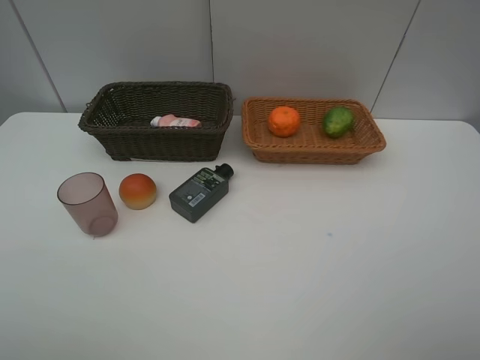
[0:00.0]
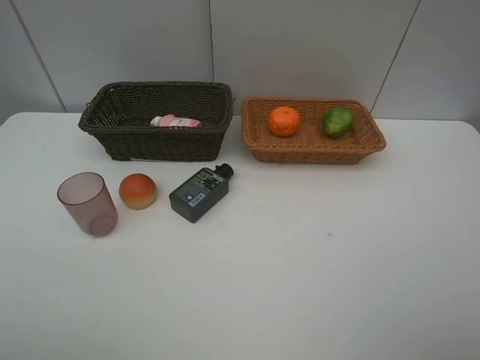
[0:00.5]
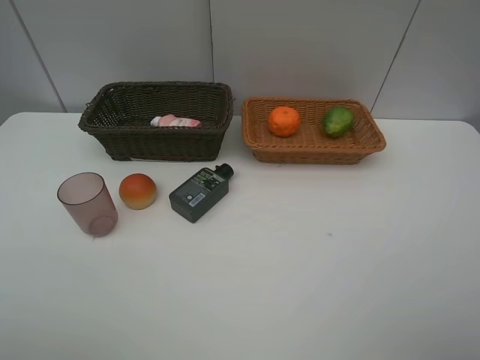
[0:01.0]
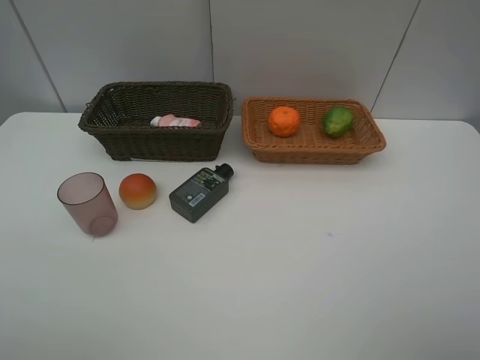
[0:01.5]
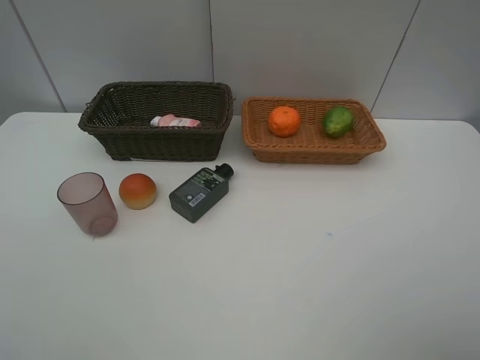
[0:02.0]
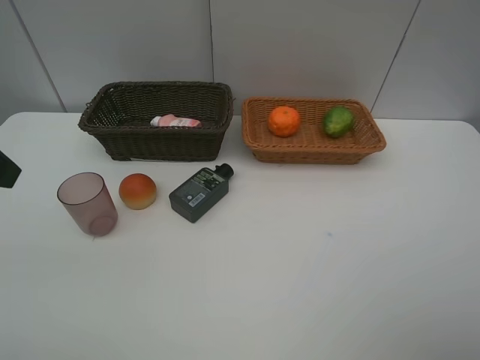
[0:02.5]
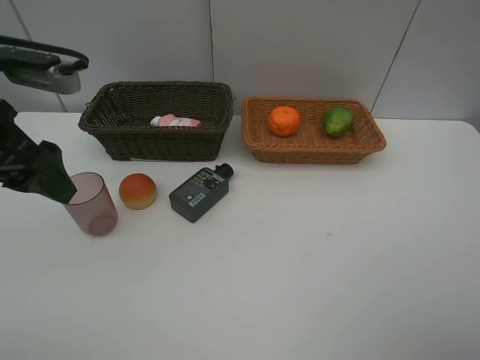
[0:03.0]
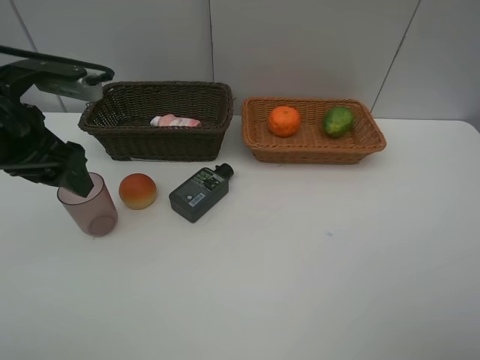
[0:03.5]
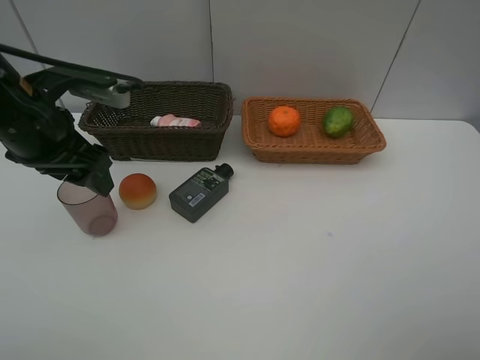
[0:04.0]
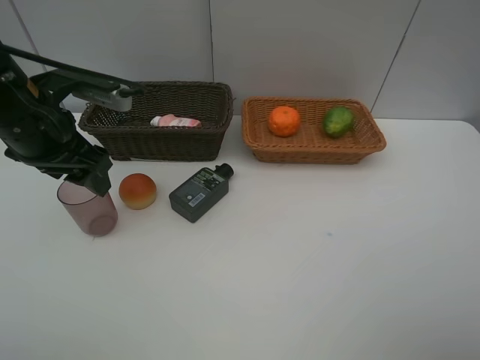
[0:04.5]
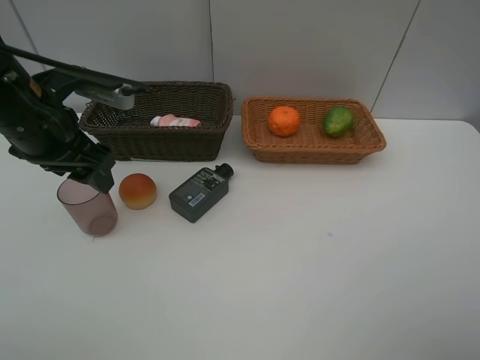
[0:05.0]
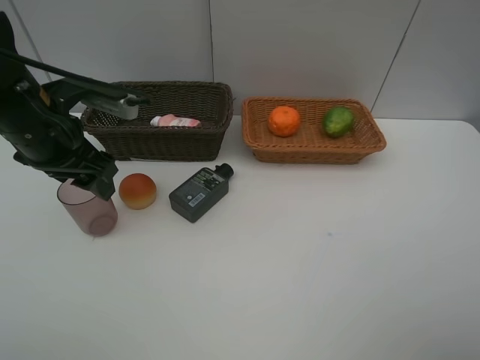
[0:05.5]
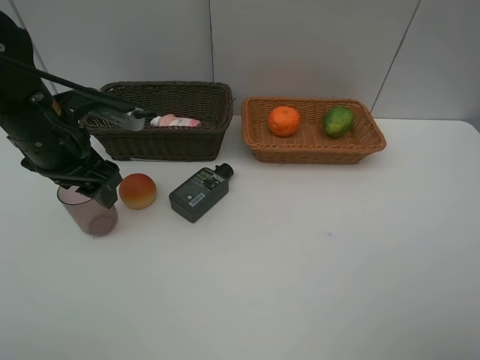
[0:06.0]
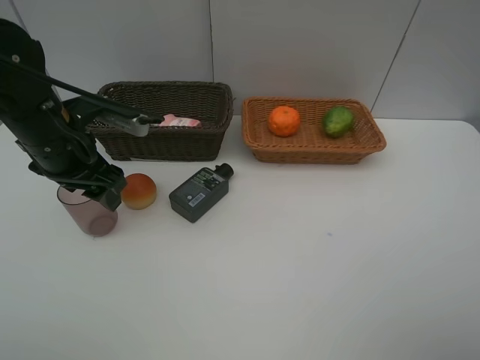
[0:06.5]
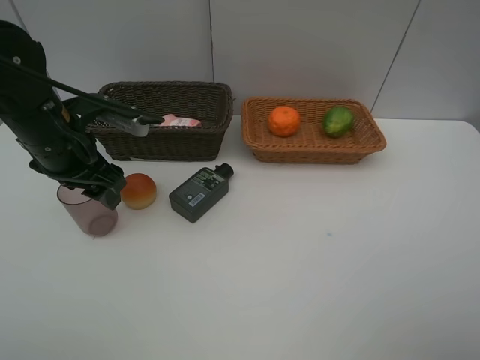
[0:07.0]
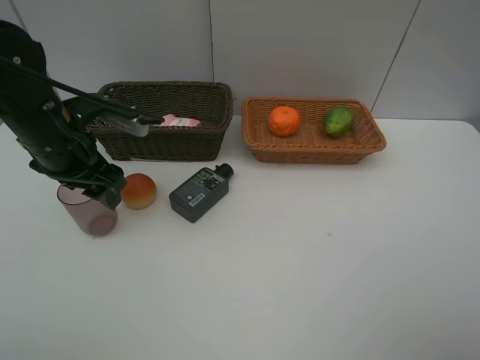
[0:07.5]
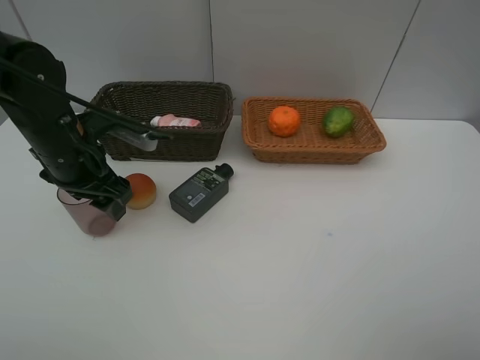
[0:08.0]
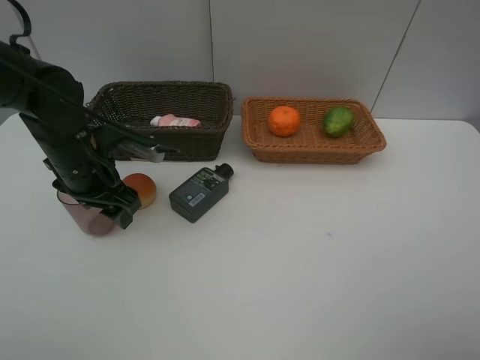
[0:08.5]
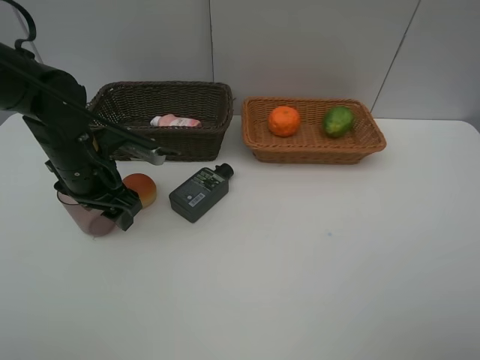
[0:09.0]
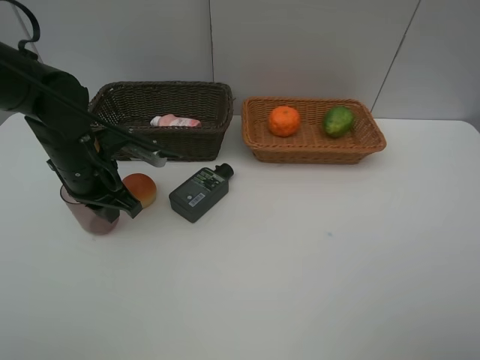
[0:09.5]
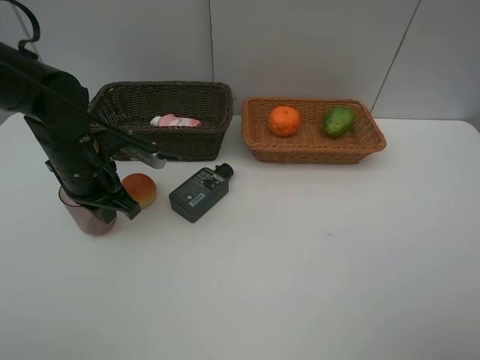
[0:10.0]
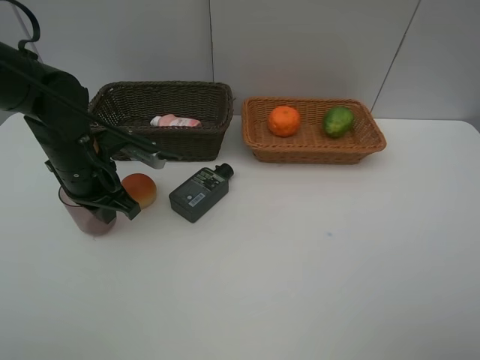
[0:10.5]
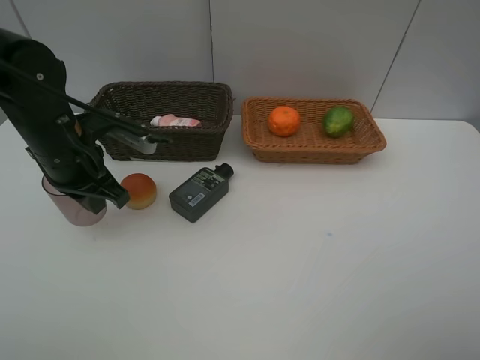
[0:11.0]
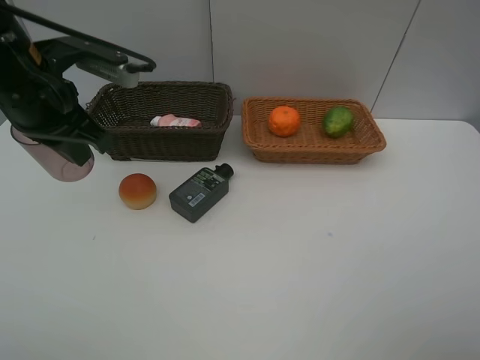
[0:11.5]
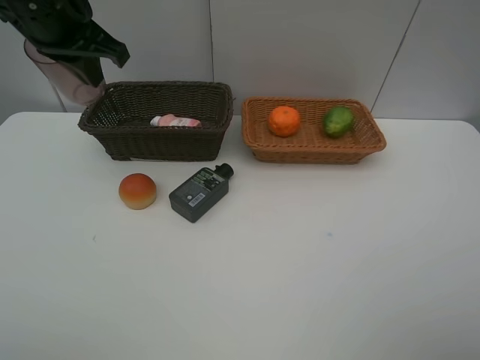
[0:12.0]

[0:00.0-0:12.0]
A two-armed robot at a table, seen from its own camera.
Task of the whole recording: place multiple objects separately in different baskets.
0:02.0 to 0:04.0: The left gripper moves forward, downward and to the right, some 20 cm.
0:04.0 to 0:06.0: There are only small adjustments of the grippers.
0:06.0 to 0:08.0: The grippers make only small movements.
0:08.0 to 0:10.0: The left gripper closes its fingers.
0:10.0 to 0:12.0: The left gripper moves upward, roughly 20 cm.

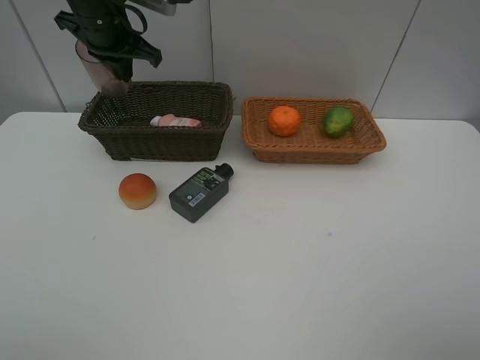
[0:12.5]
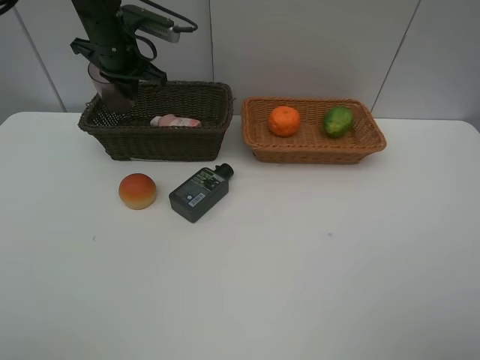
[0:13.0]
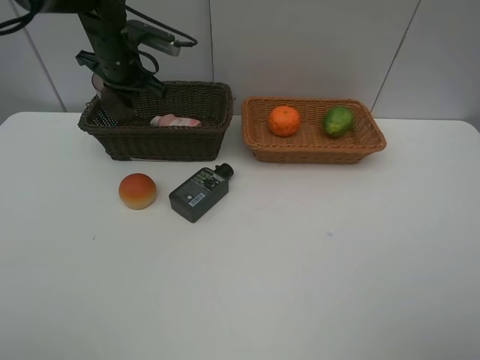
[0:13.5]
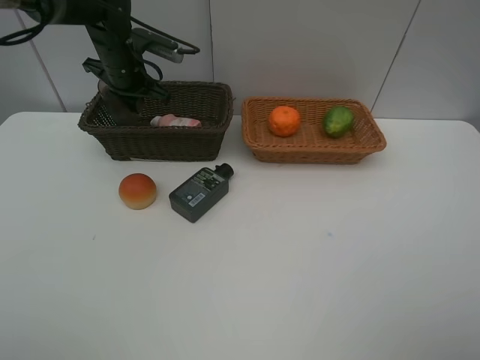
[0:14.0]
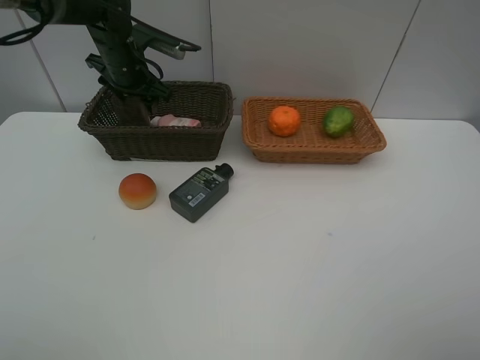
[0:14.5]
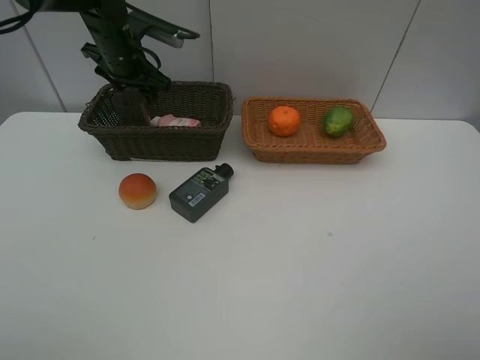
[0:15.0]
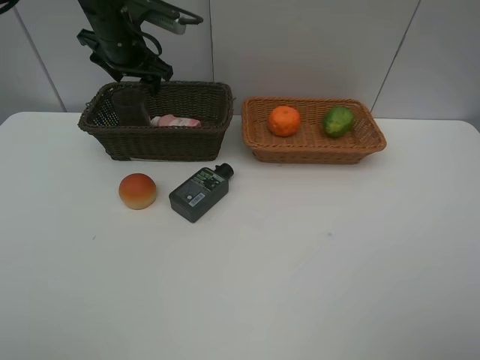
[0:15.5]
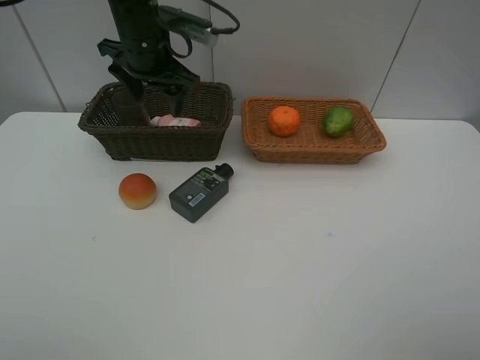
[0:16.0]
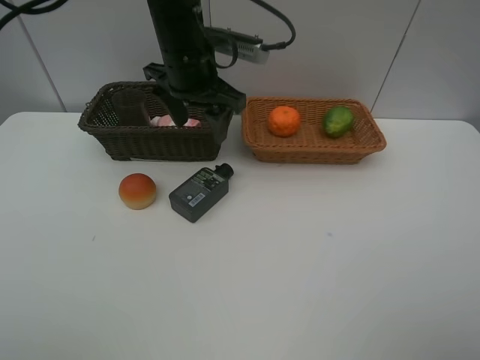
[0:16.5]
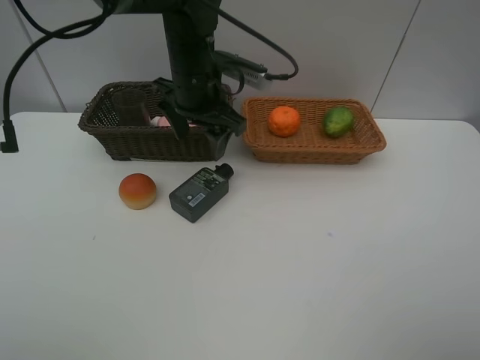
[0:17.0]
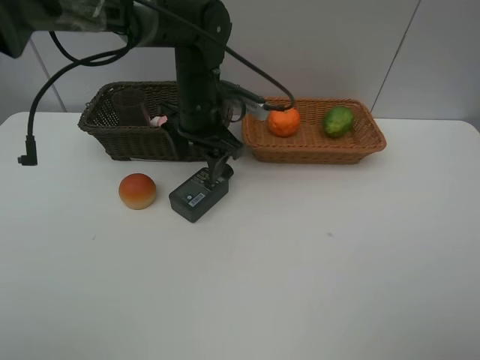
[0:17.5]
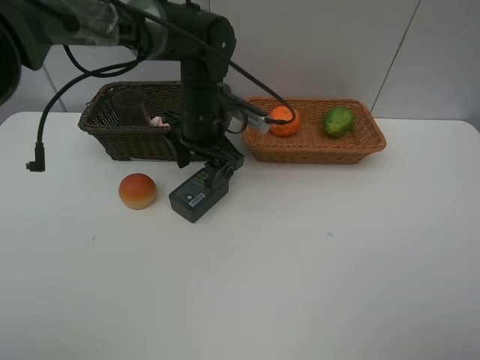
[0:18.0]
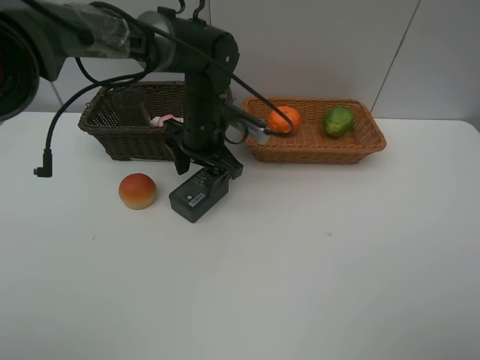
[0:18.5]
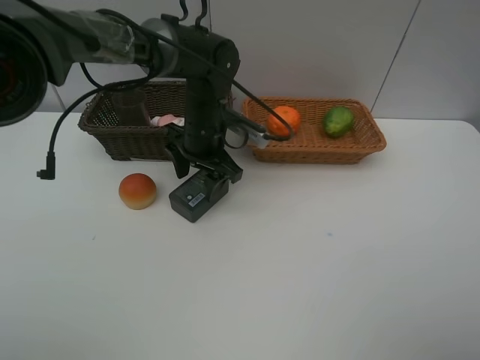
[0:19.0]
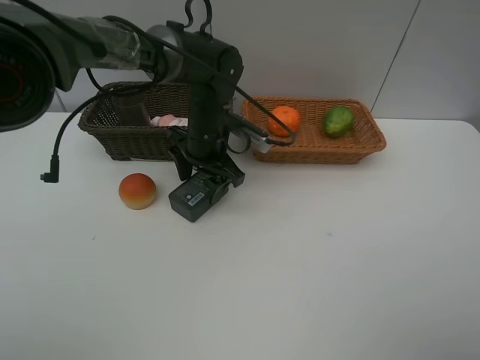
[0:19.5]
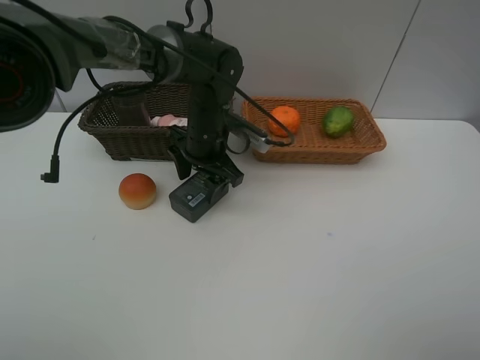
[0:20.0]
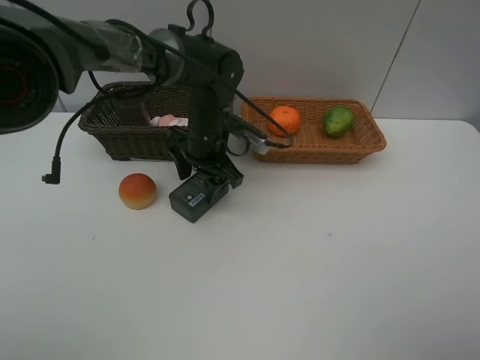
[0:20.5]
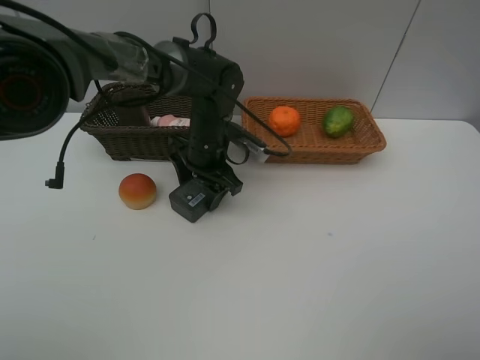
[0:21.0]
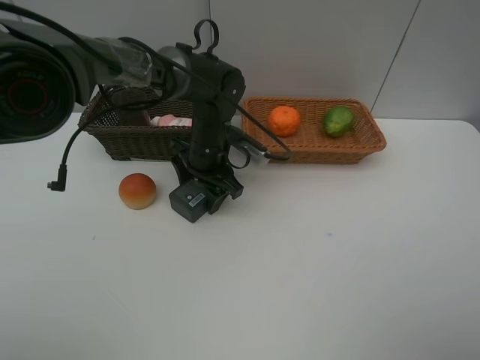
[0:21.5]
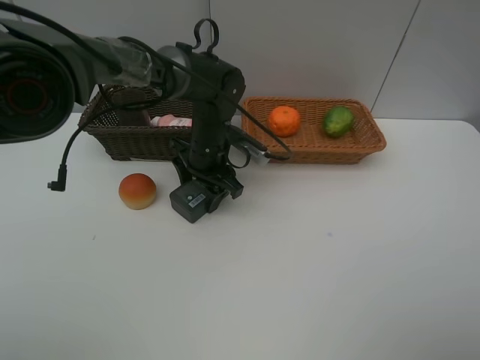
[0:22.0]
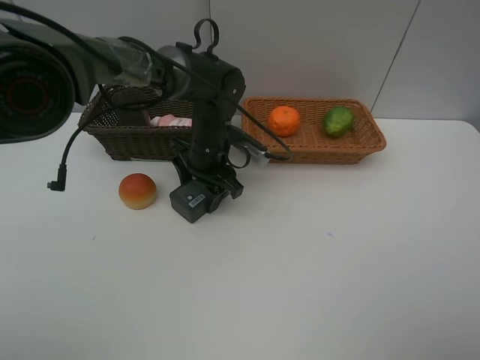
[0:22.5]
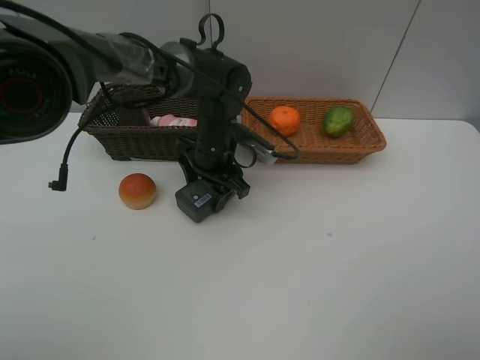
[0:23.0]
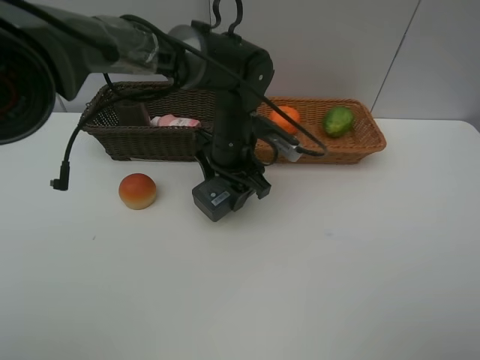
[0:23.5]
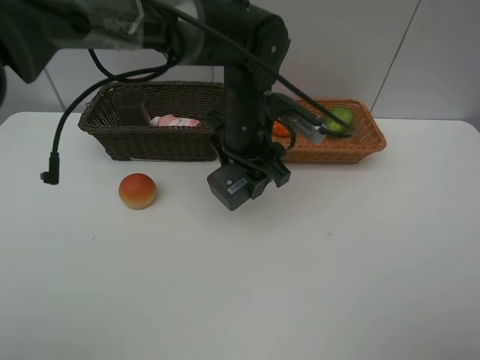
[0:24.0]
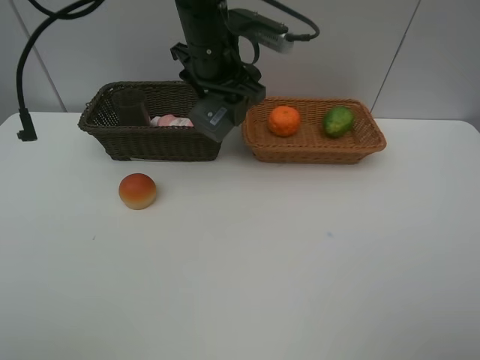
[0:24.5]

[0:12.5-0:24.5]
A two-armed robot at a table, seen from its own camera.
Task of the whole recording: place multiple objects separately in different baskets.
0:12.5 to 0:14.5: The left gripper goes roughly 10 cm downward, and opens up.
0:14.5 to 0:16.5: The left gripper moves to the right, backward and upward, approximately 20 cm.
0:16.5 to 0:18.5: The left gripper moves downward, some 10 cm.
0:18.5 to 0:22.5: The grippers stay close to where they were, moving slightly.
0:22.5 to 0:24.5: The left gripper shifts approximately 15 cm upward.

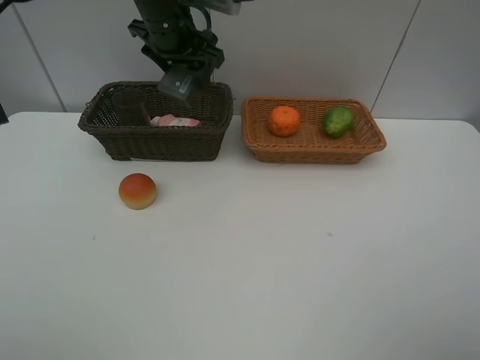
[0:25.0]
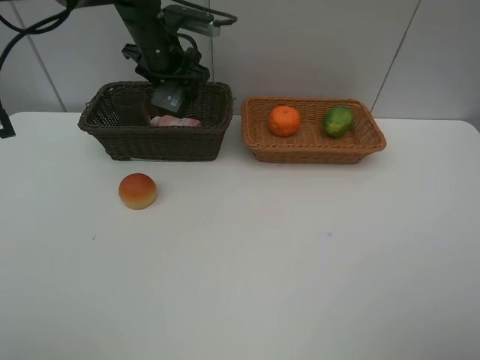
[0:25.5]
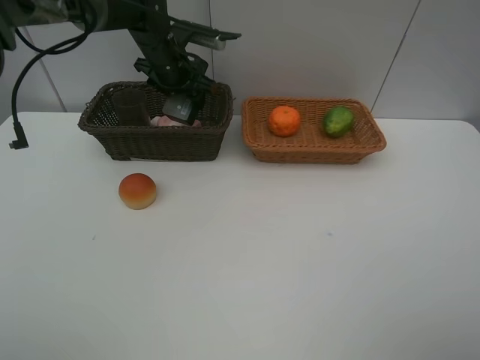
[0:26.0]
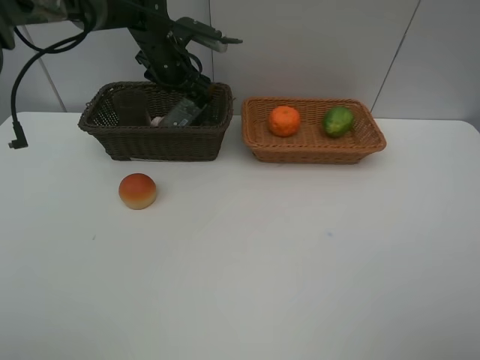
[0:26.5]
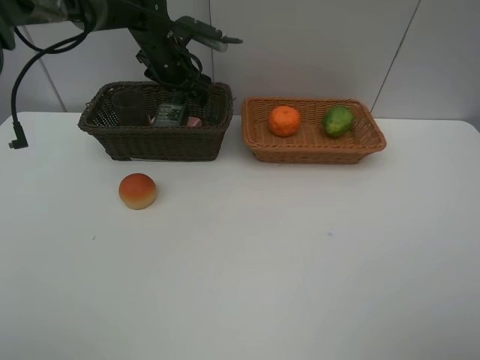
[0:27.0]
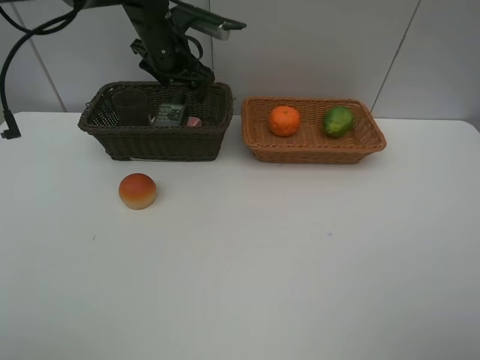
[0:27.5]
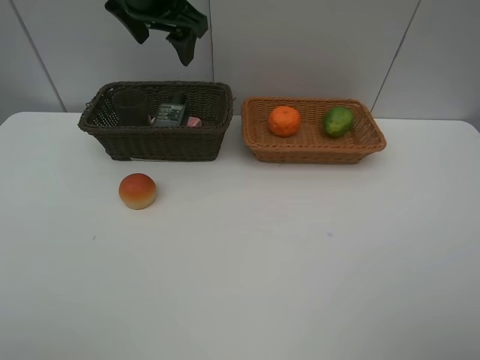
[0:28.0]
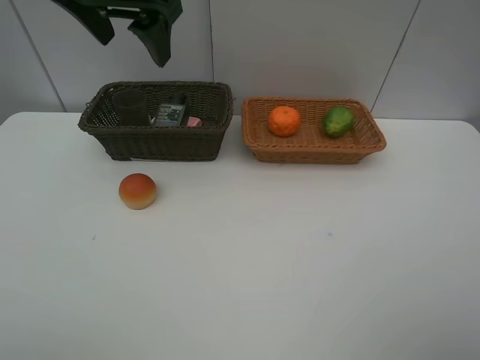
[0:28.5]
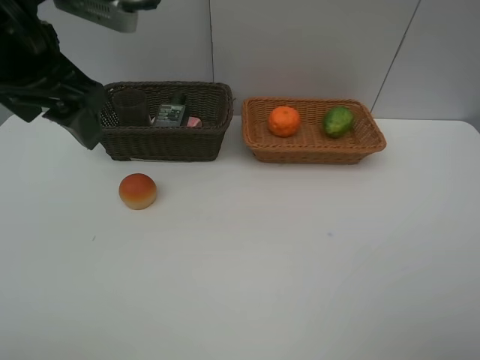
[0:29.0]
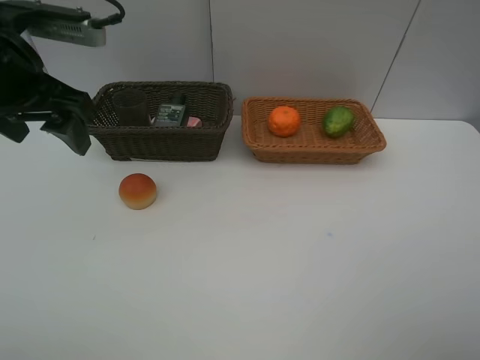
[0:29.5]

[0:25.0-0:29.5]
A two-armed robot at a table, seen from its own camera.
Task of the whole recording: place multiple objects separately in different baskets.
0:25.0 to 0:27.0: The left gripper heads downward, covering approximately 10 cm.
0:27.0 to 0:29.5: The left gripper travels backward, to the left and upward by roughly 25 cm.
